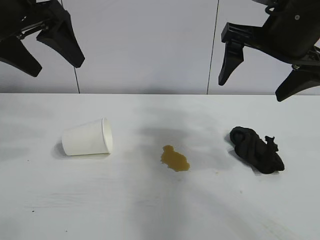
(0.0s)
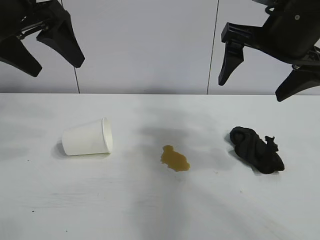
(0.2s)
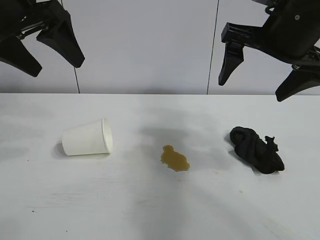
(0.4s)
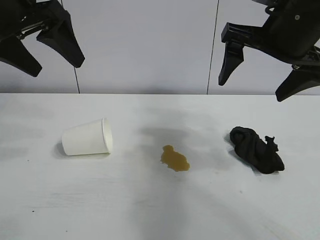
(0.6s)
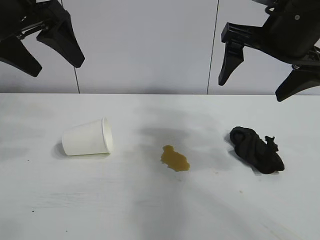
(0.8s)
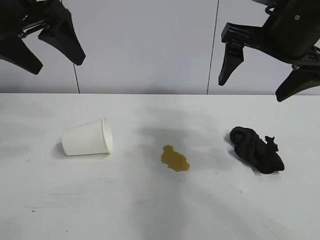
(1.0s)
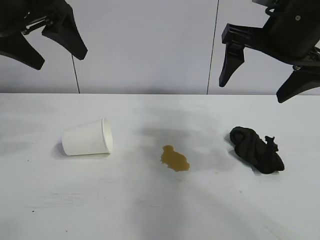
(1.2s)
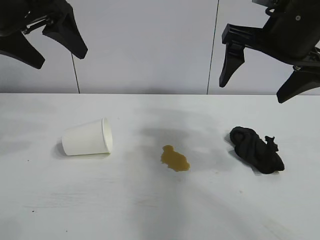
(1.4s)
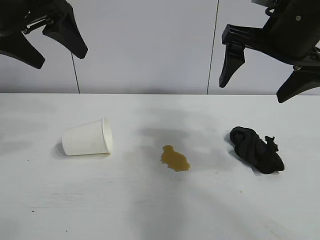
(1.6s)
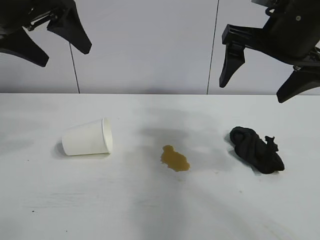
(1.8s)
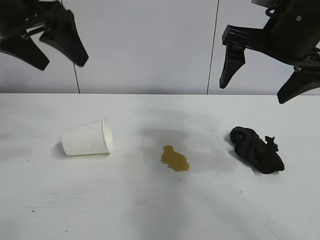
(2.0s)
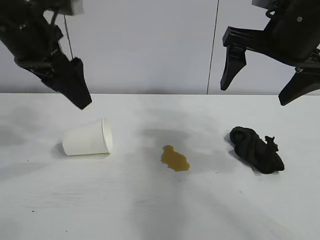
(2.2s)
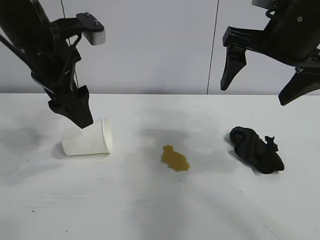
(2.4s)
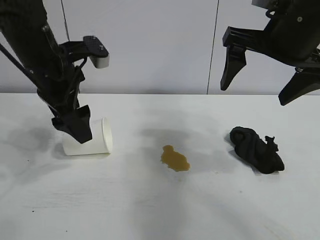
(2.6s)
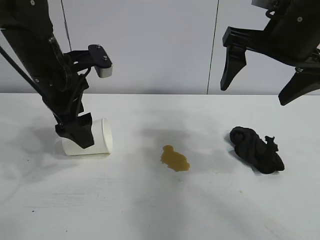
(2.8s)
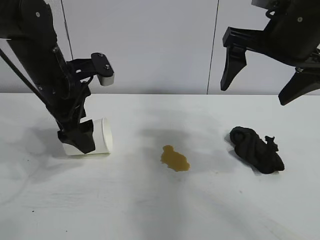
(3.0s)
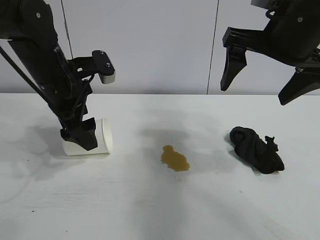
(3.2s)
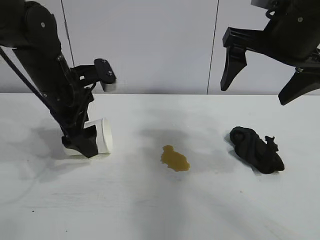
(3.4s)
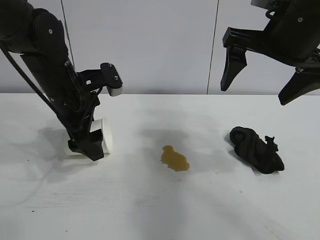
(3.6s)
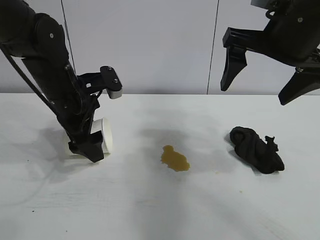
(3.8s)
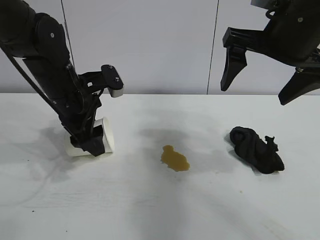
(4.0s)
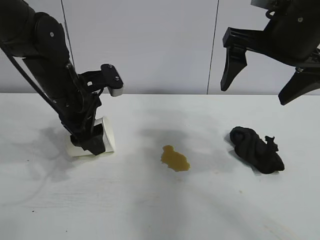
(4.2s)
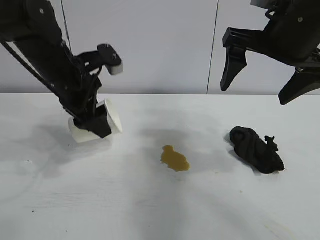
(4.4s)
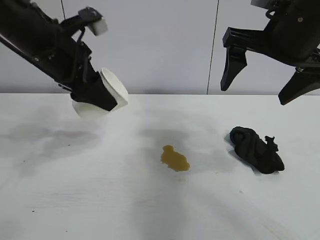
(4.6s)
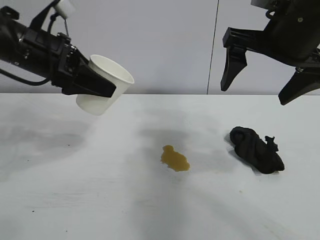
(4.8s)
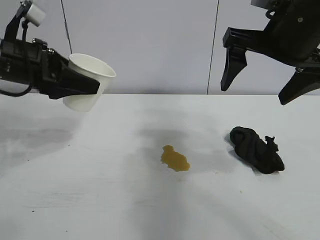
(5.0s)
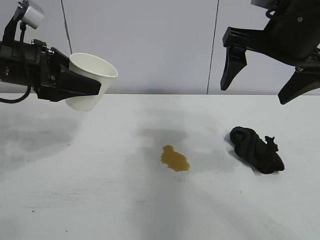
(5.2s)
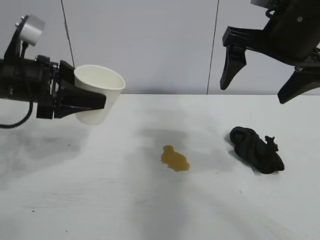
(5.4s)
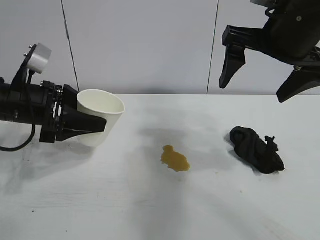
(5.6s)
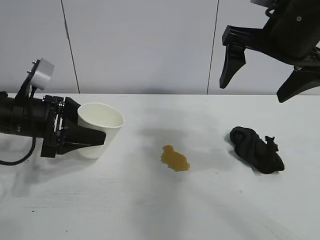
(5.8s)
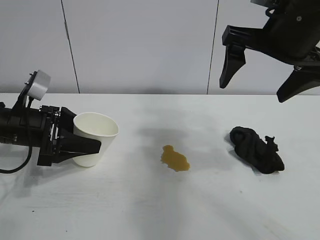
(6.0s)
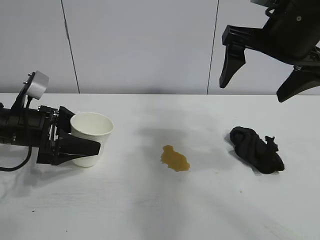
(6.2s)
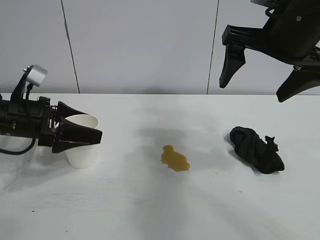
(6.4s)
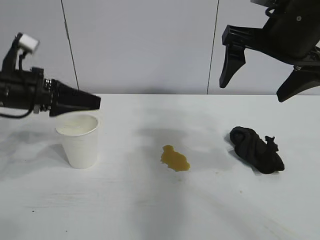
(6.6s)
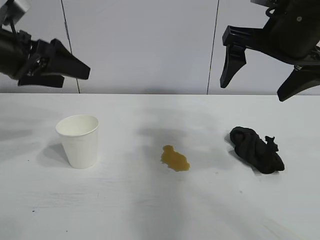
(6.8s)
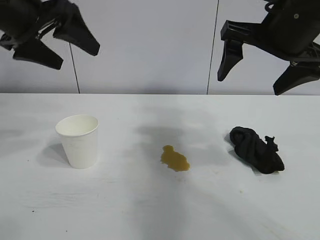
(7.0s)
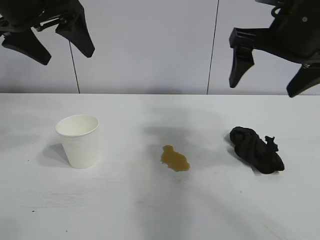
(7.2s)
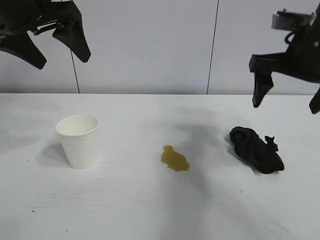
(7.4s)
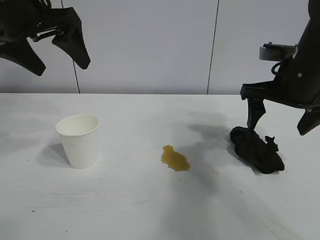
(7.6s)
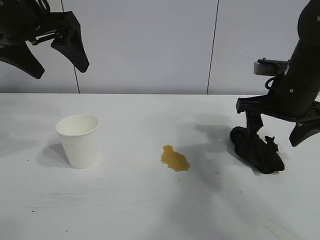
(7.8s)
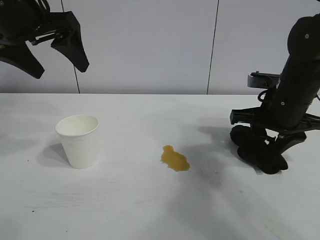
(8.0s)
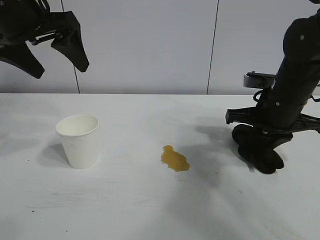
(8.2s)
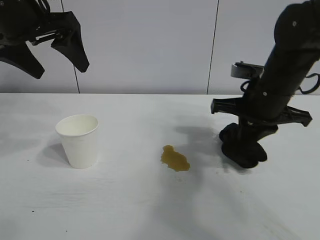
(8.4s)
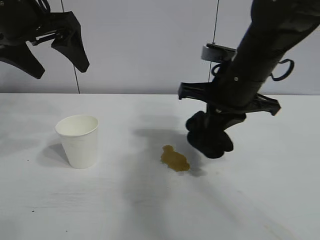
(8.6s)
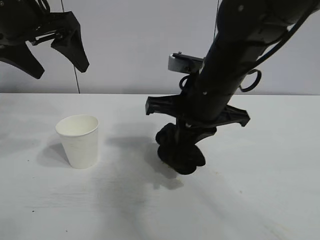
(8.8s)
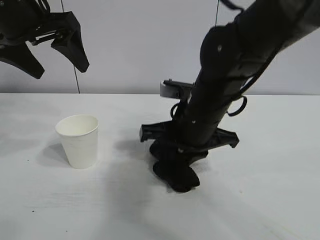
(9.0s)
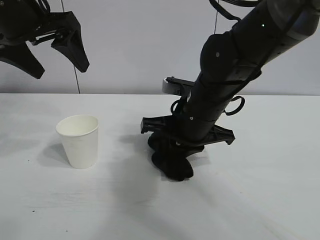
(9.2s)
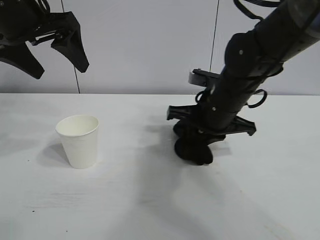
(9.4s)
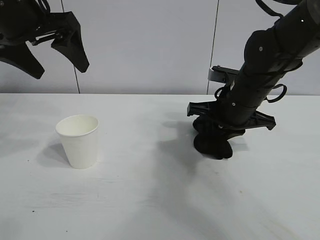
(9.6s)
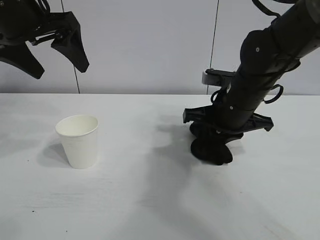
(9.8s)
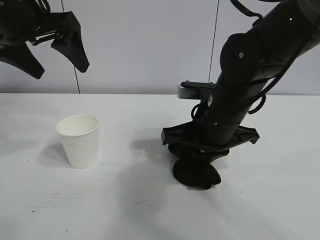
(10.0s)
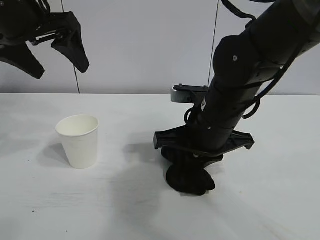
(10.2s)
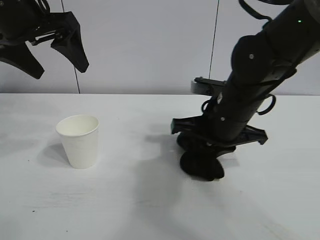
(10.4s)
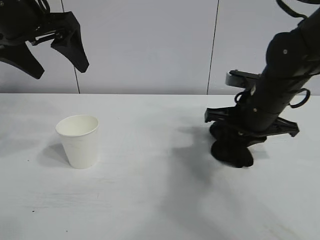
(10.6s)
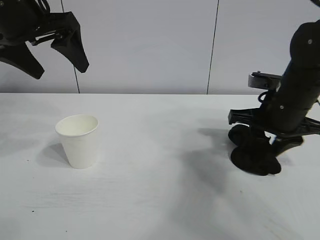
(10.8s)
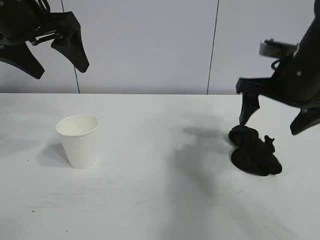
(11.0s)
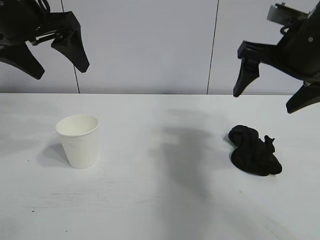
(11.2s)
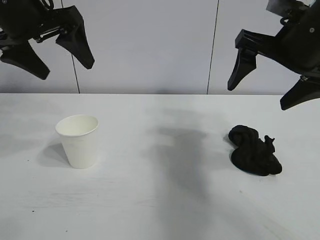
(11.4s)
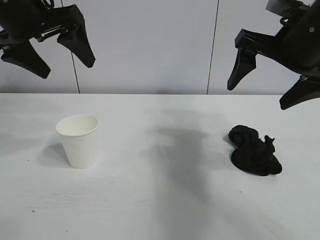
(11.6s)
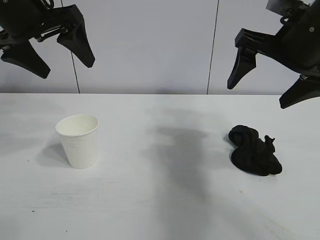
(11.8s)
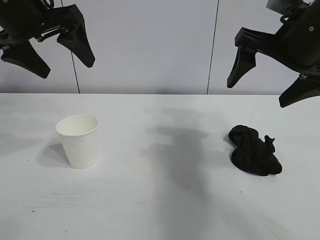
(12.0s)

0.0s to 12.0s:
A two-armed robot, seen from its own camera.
Task of the whole recording: the left gripper pick up the fallen cup and place it upright, the right gripper grasp the black rag and wipe the stain on the table, the right gripper put the black rag back in its original position.
Step, 1.6s to 4.0s: Grasp the paper cup with left gripper.
Step, 4.2s to 6.2s: Stand the paper cup upright with left gripper.
Step, 6.4s to 8.2s: Grasp the rag with right gripper.
Step, 8.4s to 10.6s: Wipe the stains off the table with the rag with right gripper.

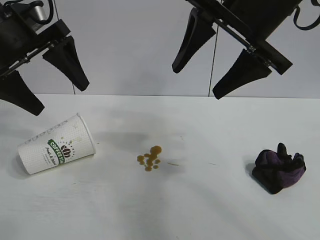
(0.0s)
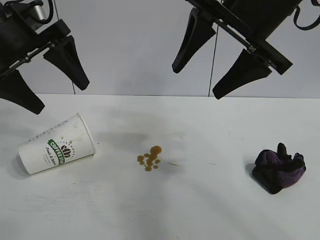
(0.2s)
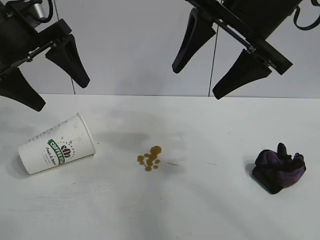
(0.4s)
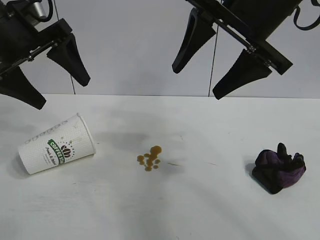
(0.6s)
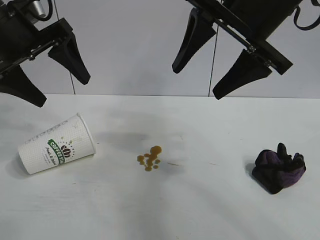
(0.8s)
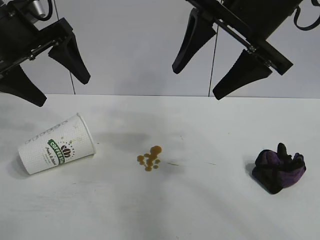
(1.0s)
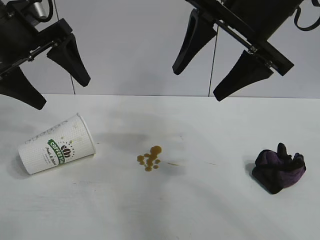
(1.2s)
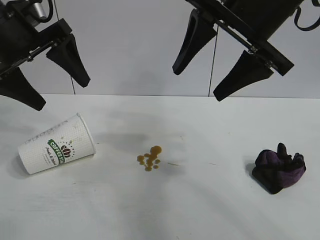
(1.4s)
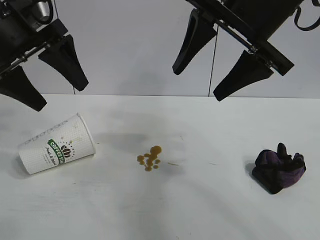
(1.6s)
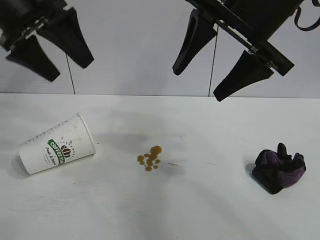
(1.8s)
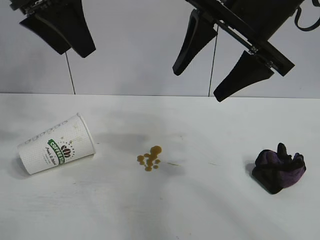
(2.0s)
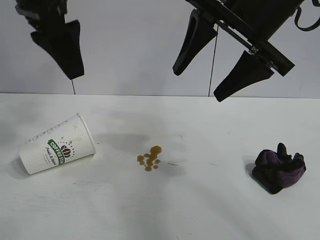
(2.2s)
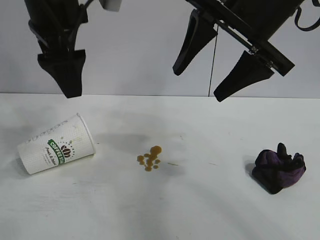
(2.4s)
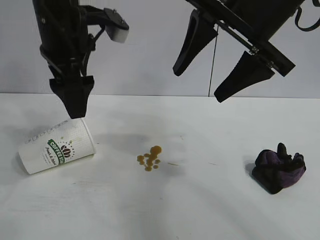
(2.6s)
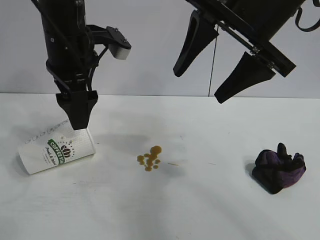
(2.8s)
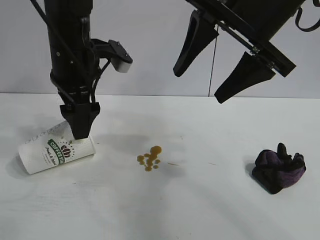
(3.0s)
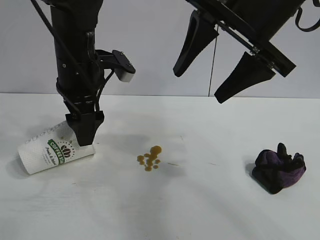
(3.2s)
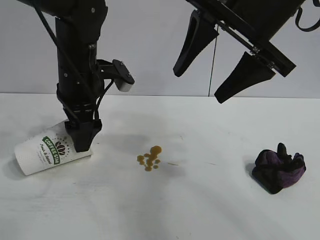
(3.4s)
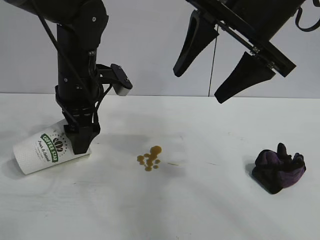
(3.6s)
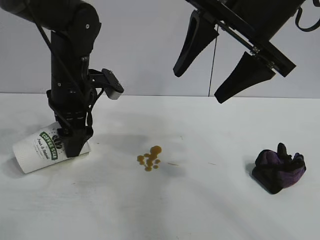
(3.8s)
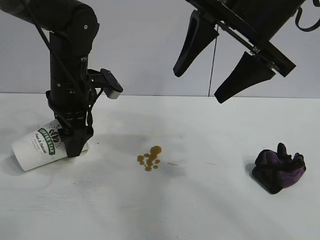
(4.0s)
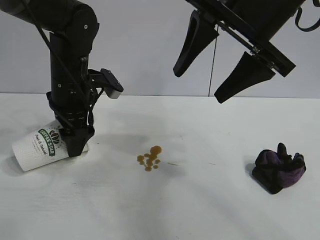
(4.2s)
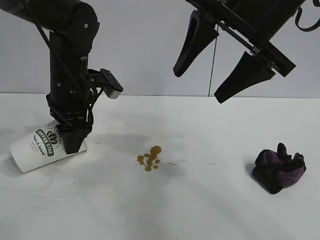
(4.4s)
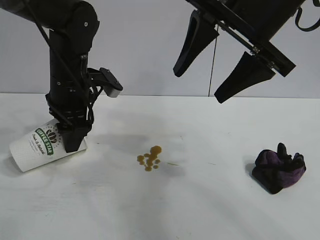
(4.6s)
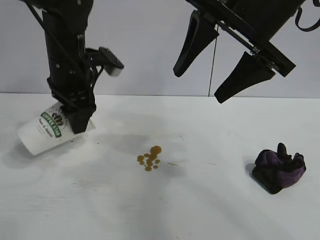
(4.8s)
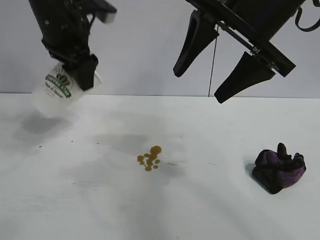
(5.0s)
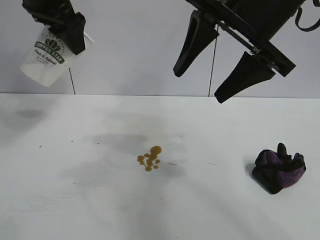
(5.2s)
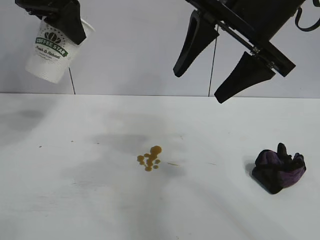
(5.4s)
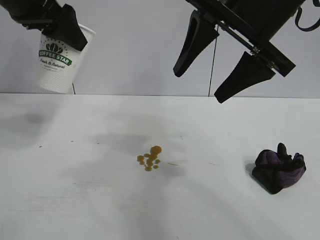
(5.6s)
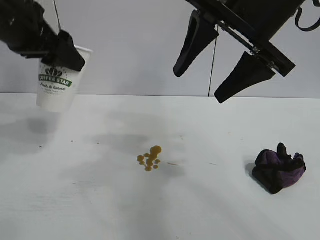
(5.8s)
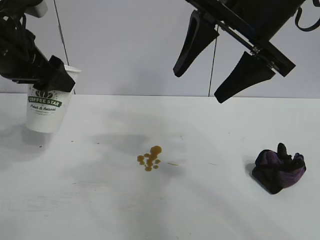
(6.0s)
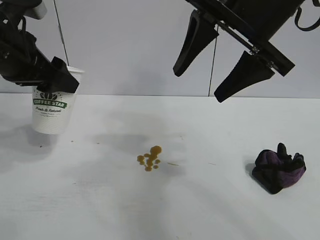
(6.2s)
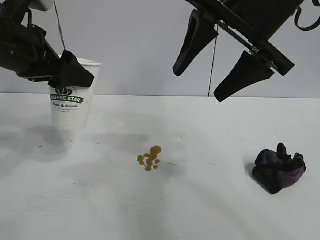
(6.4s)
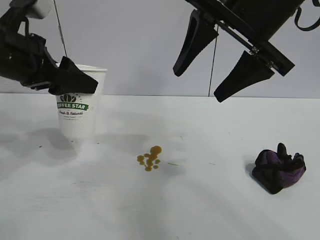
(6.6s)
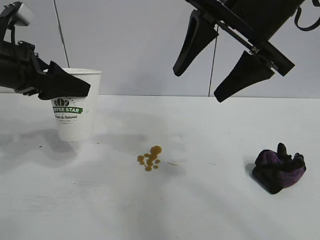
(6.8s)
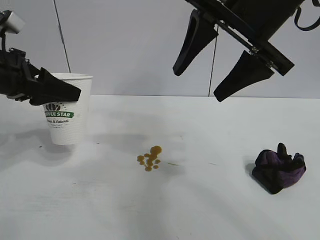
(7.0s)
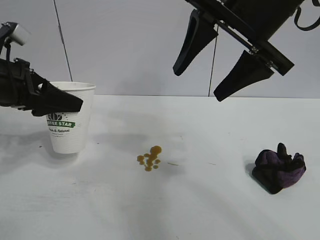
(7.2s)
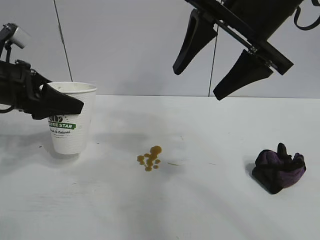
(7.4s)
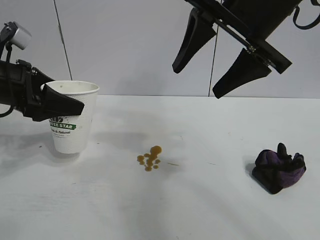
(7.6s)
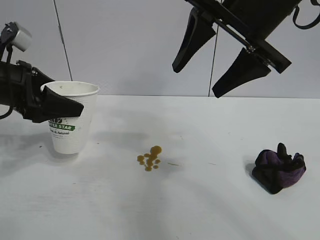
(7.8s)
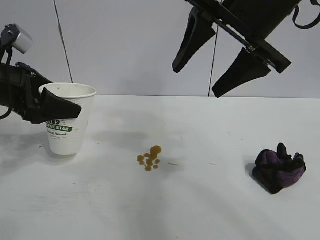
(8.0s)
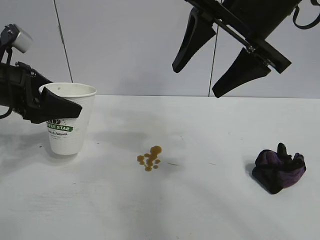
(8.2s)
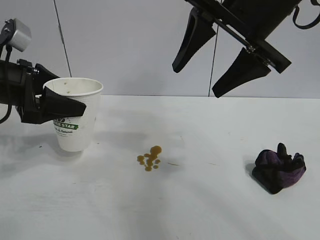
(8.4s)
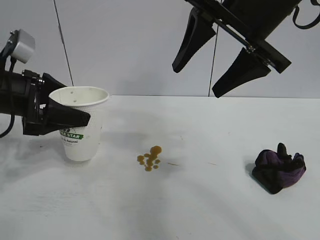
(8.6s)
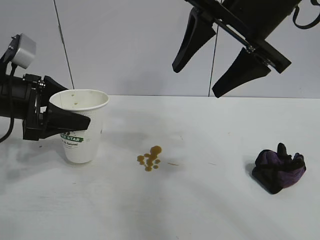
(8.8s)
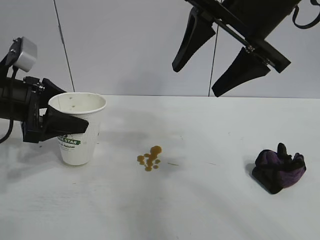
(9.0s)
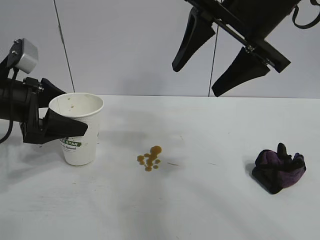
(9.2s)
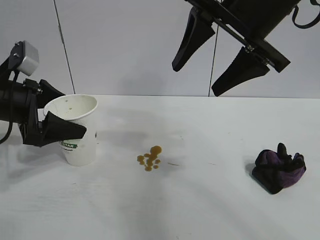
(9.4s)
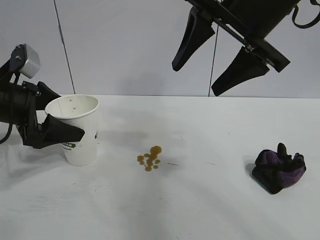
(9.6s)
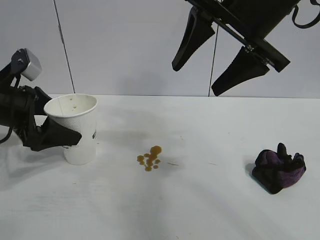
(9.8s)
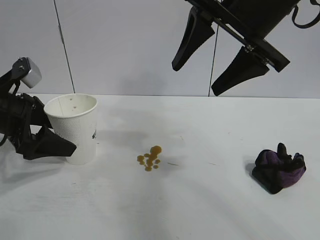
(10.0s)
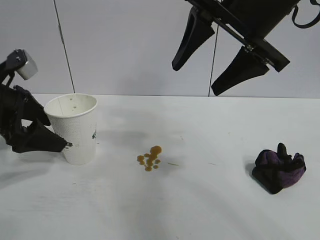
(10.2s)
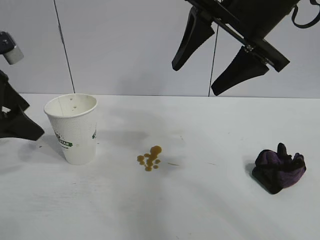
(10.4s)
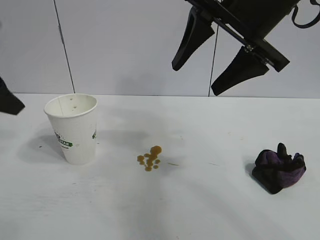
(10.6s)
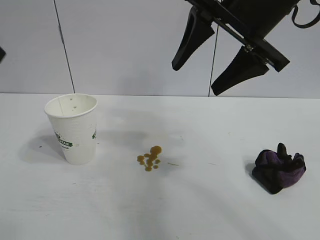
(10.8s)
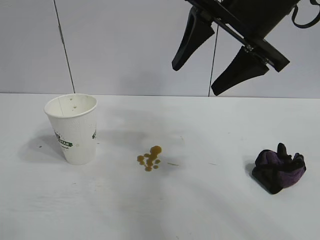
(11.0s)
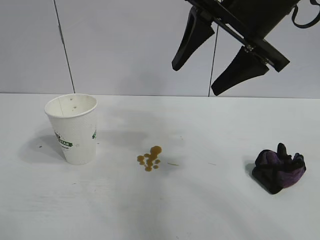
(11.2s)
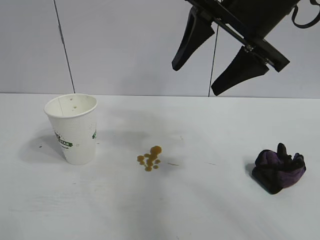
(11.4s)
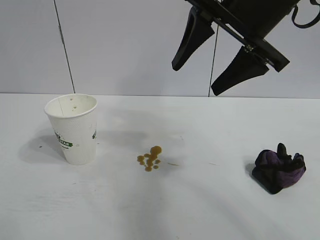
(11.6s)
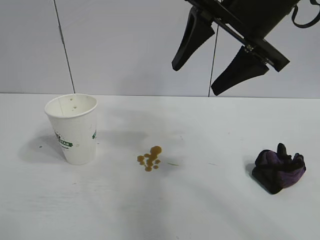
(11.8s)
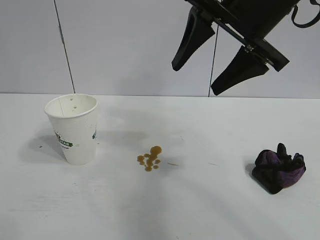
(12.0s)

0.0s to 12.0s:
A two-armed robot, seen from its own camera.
Task of the whole recording: the left gripper pick up the fallen cup and place it upright, the right gripper grasp the black rag and wipe the stain on the table, the right gripper put the black rag back in its original position.
Step, 0.0s to 4.4s: Grasp the paper cup with left gripper.
Step, 4.6s to 9.8s: Stand the paper cup upright with left gripper.
